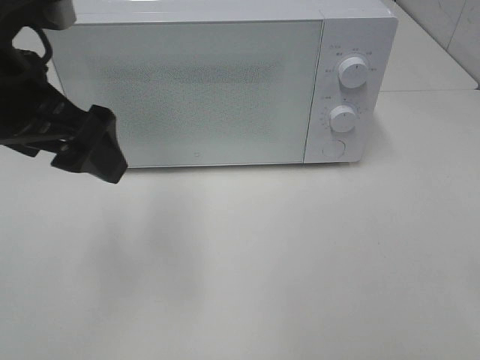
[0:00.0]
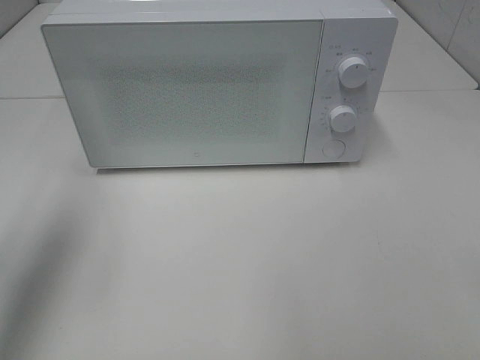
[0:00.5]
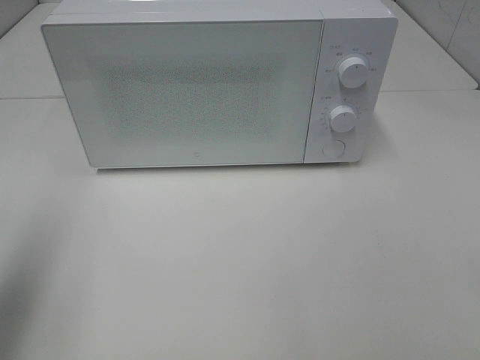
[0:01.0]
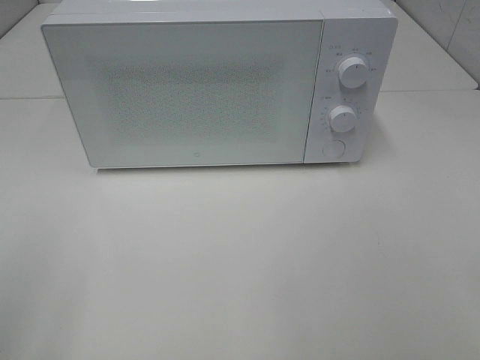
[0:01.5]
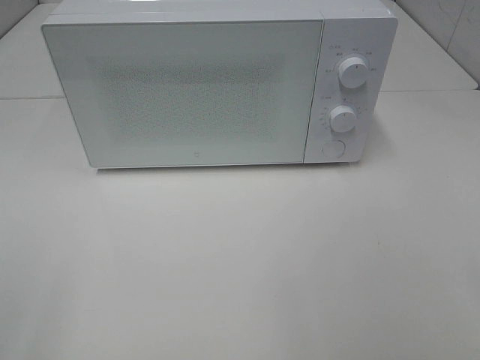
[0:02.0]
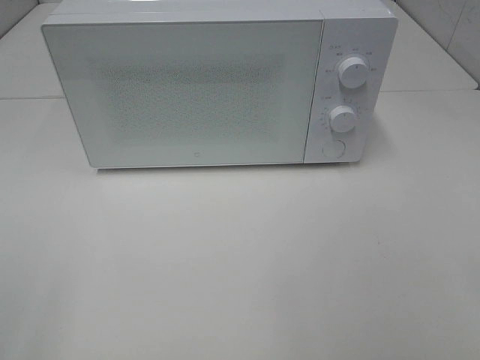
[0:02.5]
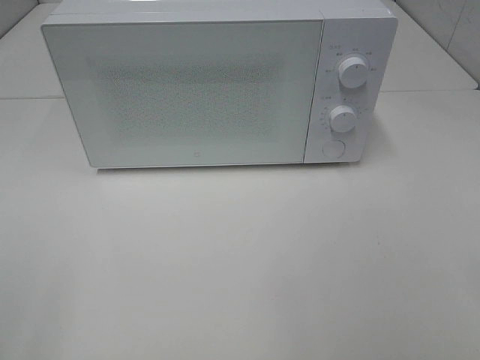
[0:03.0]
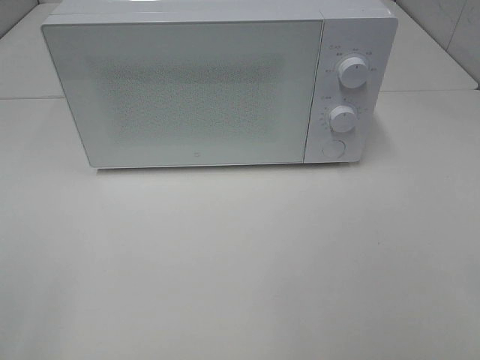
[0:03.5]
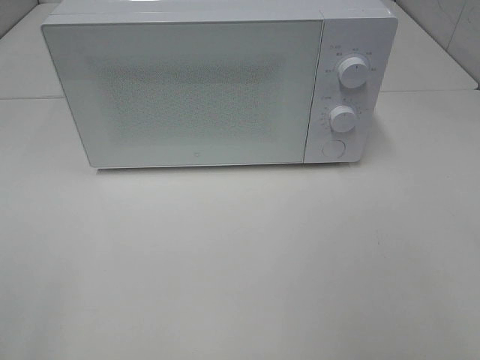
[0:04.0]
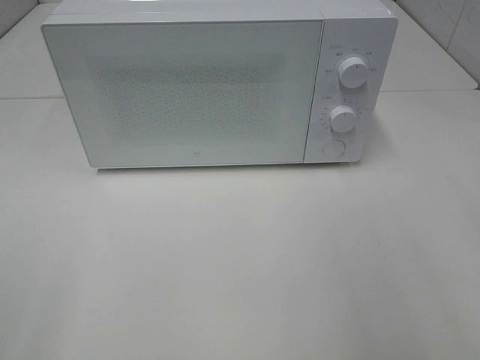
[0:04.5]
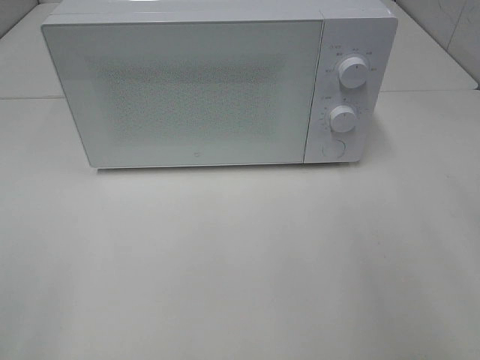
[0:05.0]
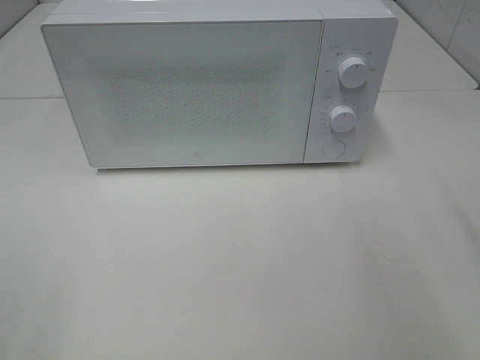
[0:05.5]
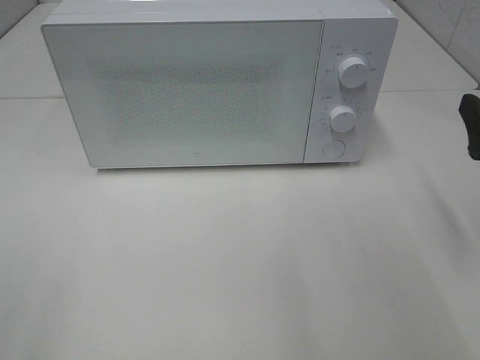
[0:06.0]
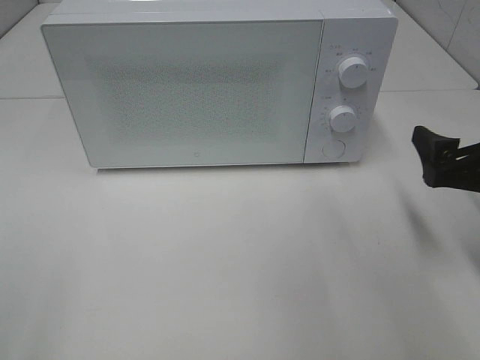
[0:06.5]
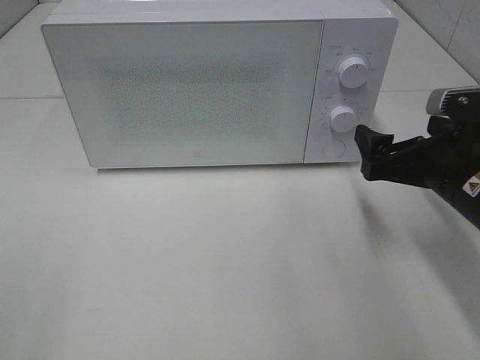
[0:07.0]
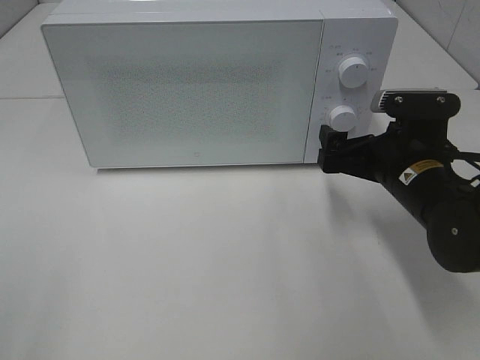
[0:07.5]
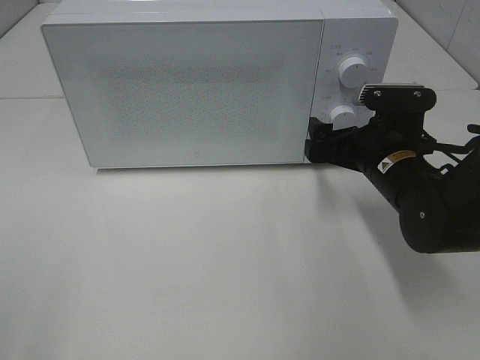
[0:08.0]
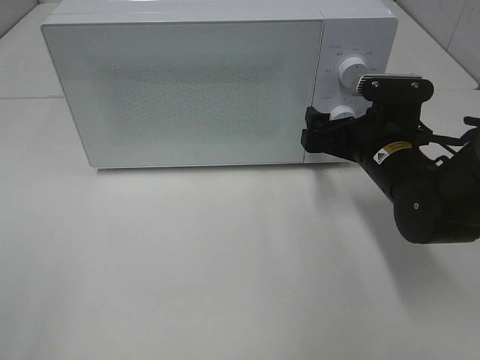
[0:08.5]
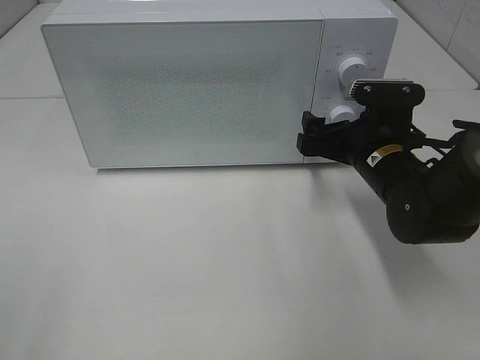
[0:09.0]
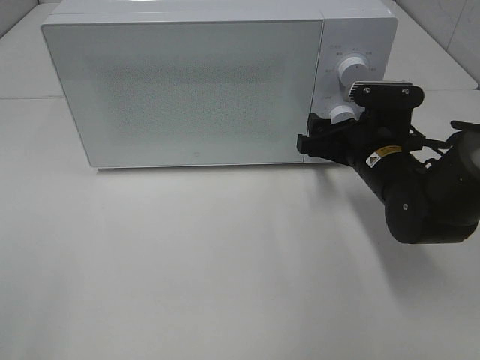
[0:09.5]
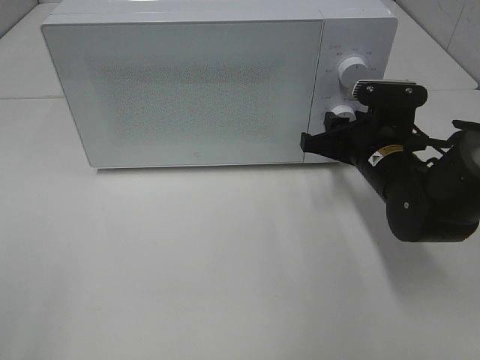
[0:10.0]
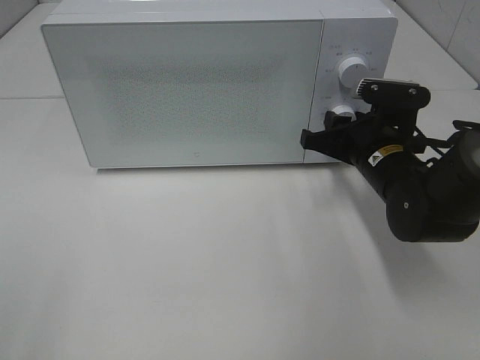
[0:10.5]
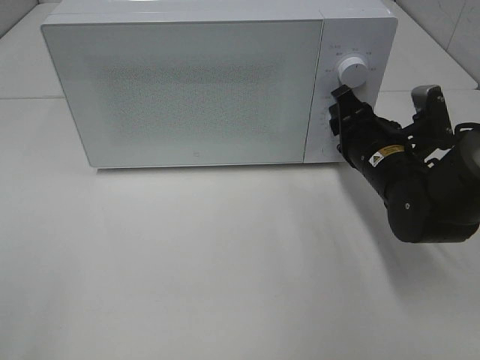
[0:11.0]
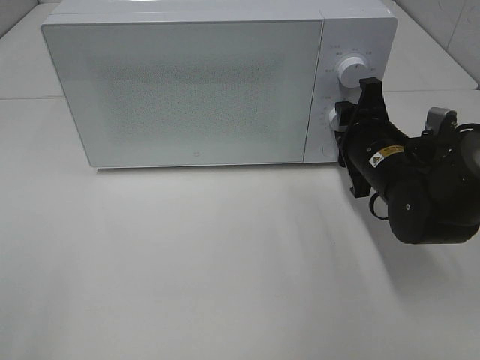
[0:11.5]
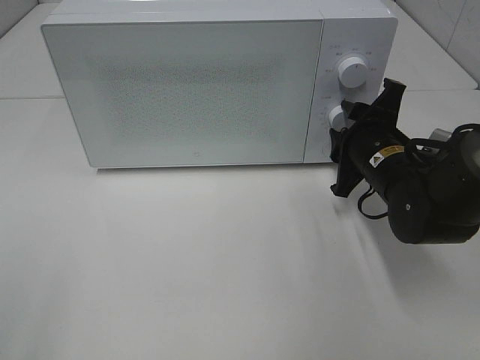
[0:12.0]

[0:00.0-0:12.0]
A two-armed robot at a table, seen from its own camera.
Task of the whole recording: Heat the burger.
0:00.0 to 0:02.0: The left gripper travels backward and to the left by roughly 30 cm.
0:04.0 to 0:06.0: The right gripper shifts approximately 20 cm forward and downward.
0:06.0 to 0:08.0: The right gripper shifts some 20 cm to the left, forward and downward.
0:08.0 to 0:10.0: The right gripper closes.

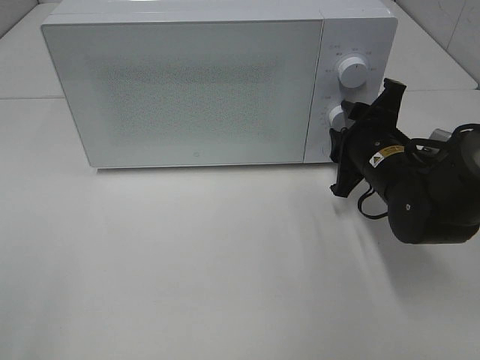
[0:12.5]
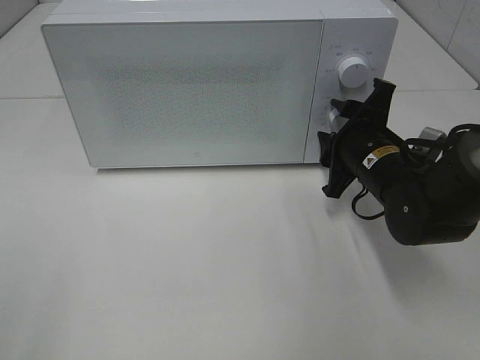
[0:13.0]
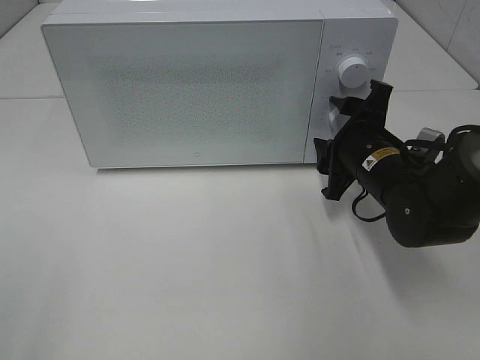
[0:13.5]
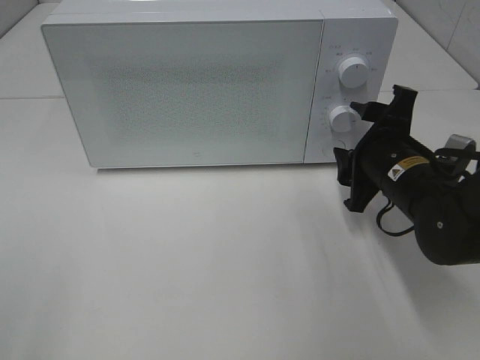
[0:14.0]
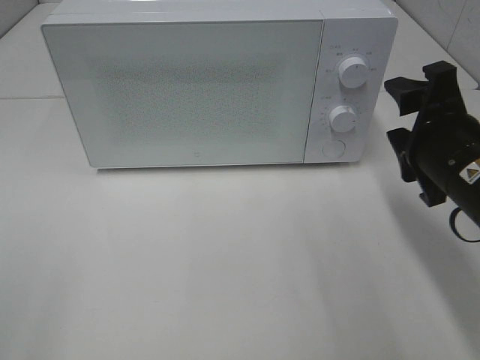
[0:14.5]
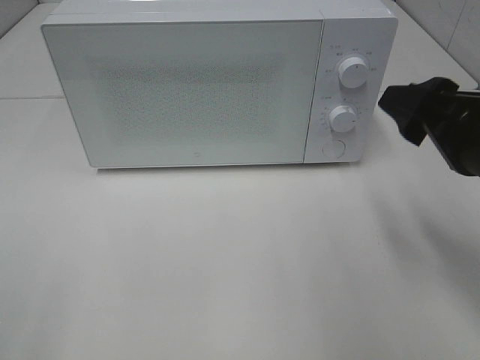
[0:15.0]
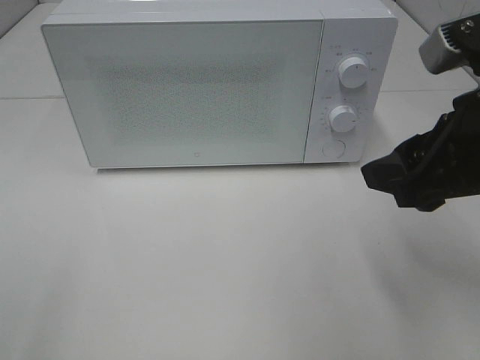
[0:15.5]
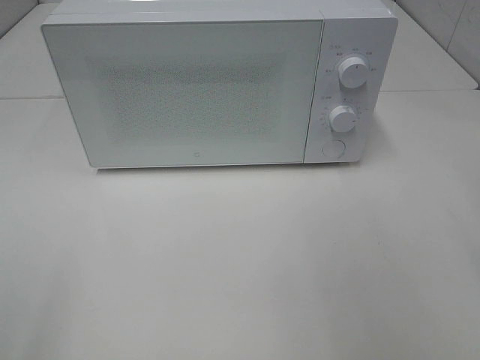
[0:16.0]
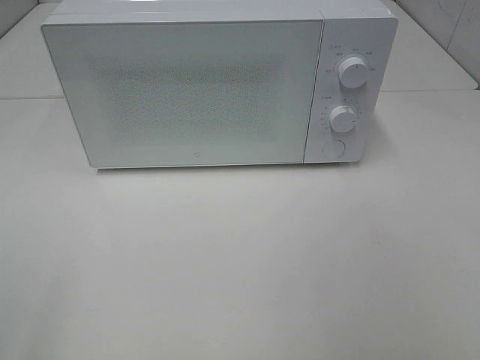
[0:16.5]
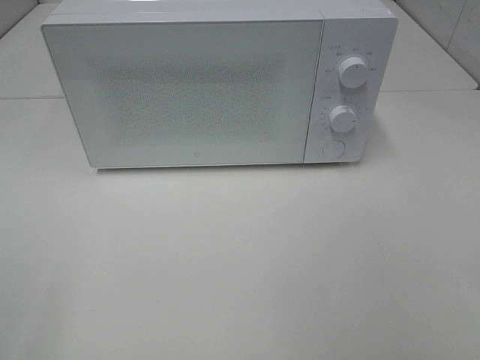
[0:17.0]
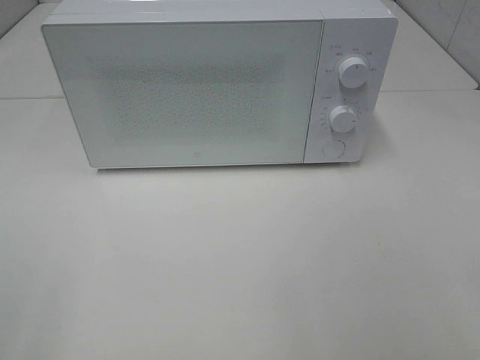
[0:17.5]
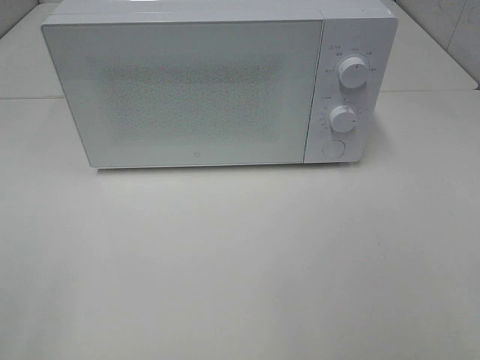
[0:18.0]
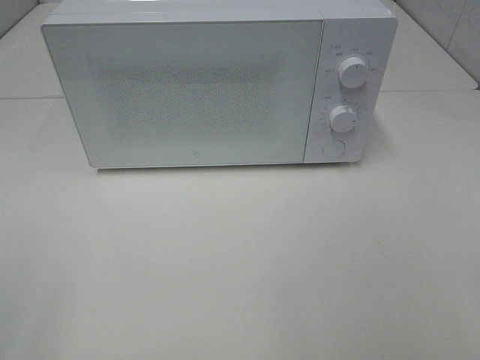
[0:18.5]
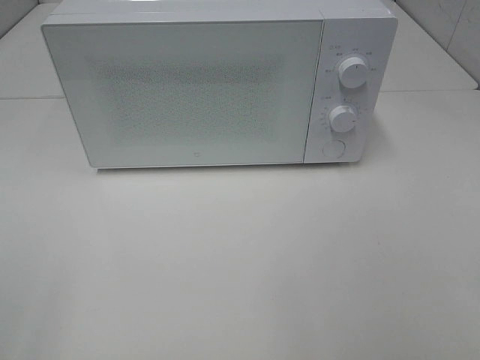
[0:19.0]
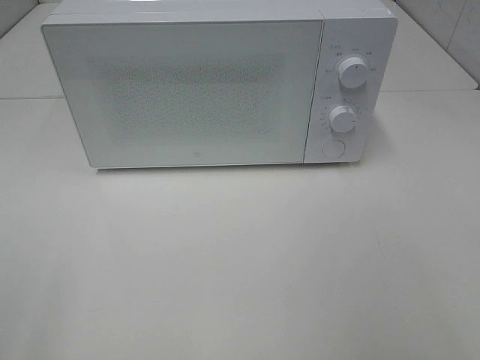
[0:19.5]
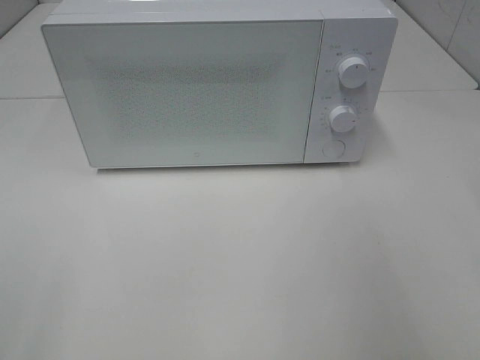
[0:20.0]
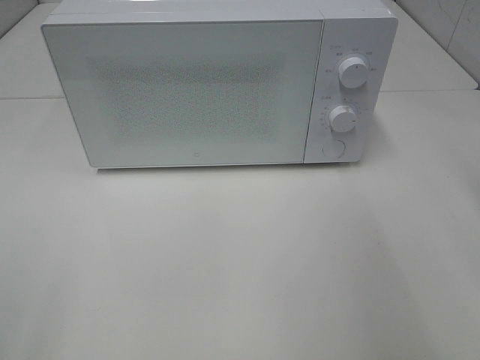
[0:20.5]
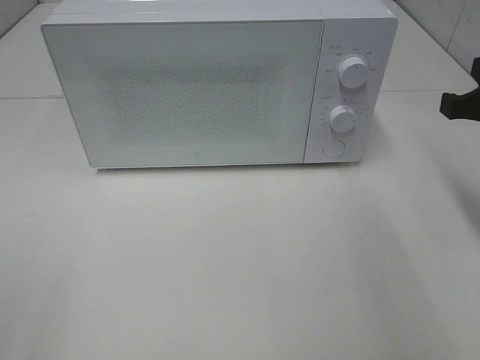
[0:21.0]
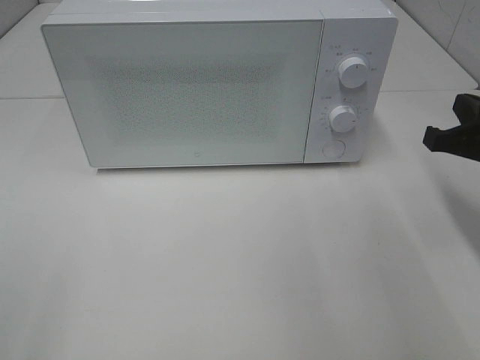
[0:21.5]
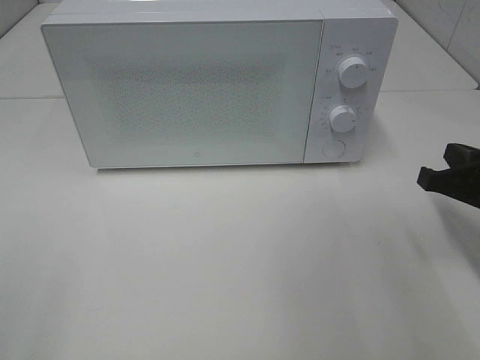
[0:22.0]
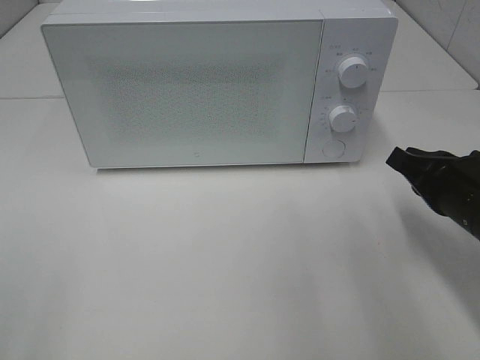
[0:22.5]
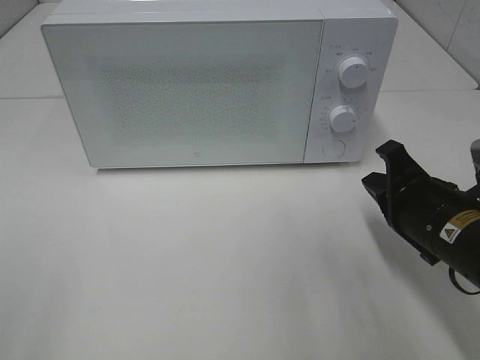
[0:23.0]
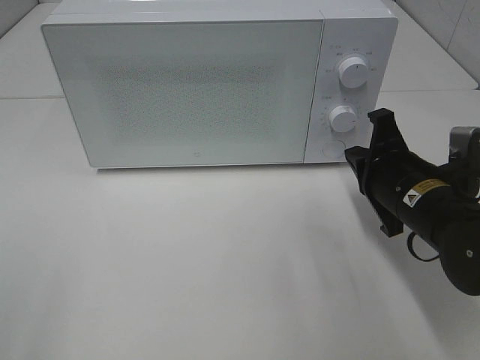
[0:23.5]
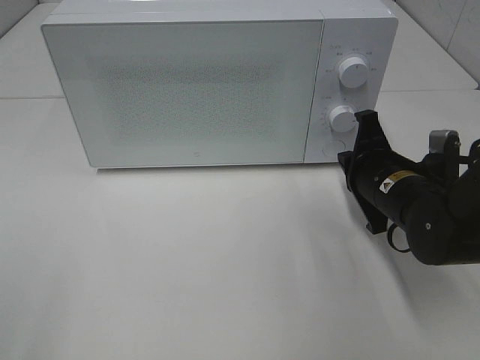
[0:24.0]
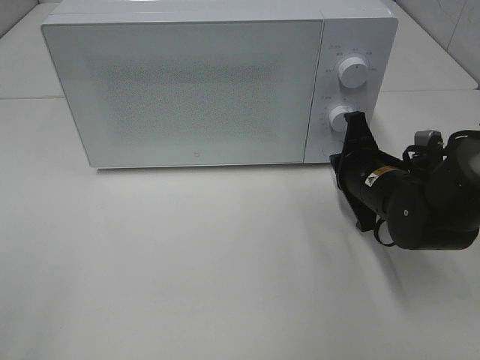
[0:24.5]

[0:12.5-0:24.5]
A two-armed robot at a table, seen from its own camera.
Task of the whole recording: Heat the burger.
0:12.5 to 0:14.5: The right gripper heads backward and upward, covering about 10 cm.
0:14.5 to 0:16.5: The right gripper is displaced backward, upward and to the right by about 20 cm.
0:20.5 to 0:22.5: The right gripper travels downward by approximately 15 cm.
0:22.5 to 0:24.5: The right gripper goes approximately 10 cm forward, to the left and downward.

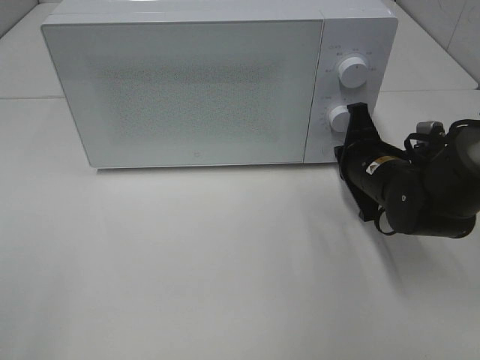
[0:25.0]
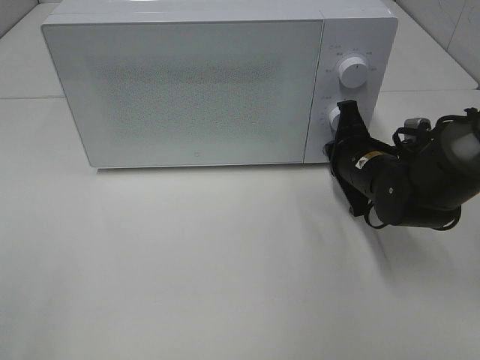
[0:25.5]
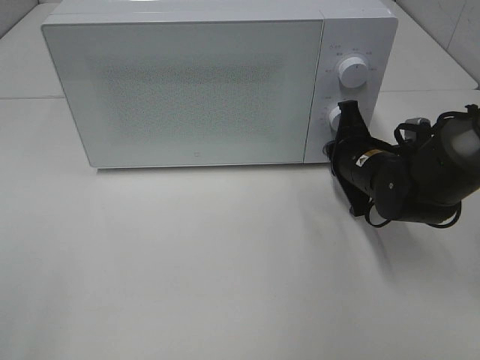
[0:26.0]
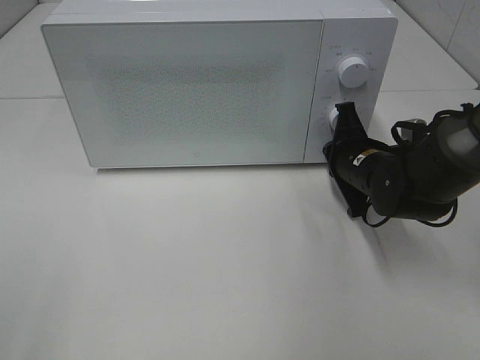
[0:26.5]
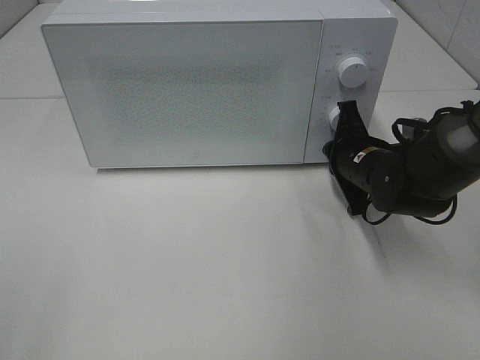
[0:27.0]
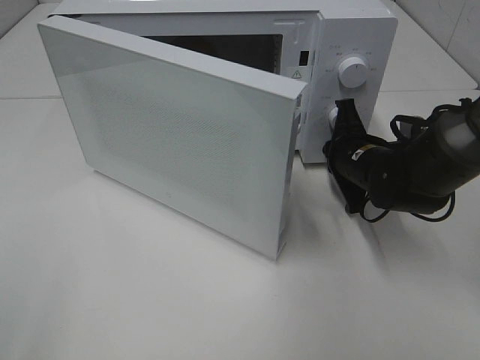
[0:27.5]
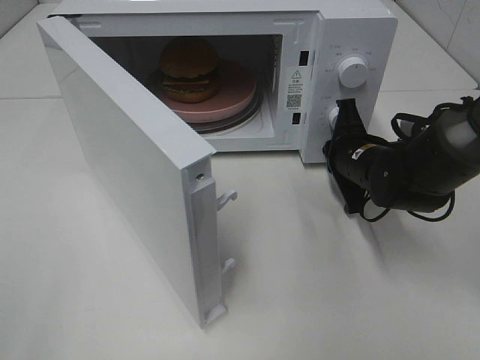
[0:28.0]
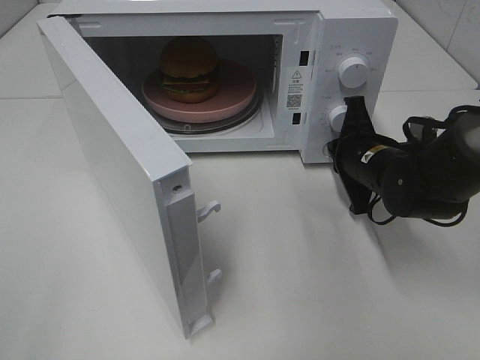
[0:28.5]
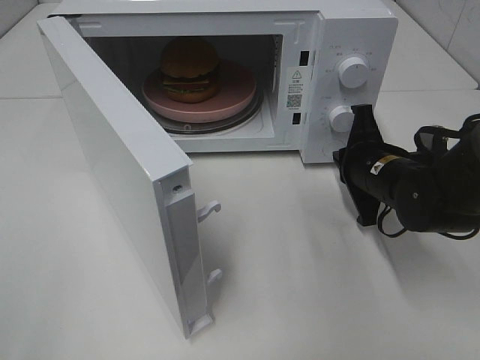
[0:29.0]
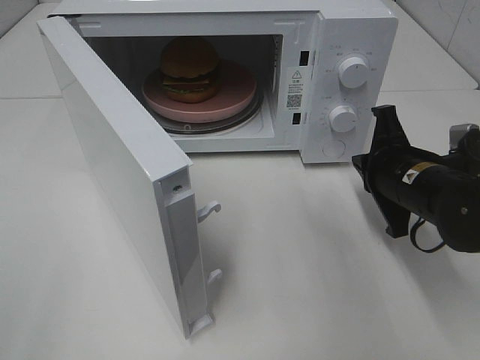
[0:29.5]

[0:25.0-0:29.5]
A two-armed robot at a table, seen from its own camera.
Task of the whole recording: Heat the burger.
Step, 0:25.0 to 0:28.5: Right hand: press the switch.
0:25.0 to 0:27.0: The grippers make only small movements.
0:27.0 to 0:29.5: The right gripper moves backward, roughly 5 cm.
